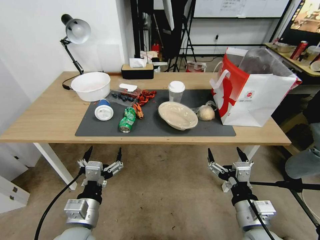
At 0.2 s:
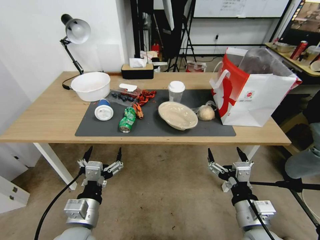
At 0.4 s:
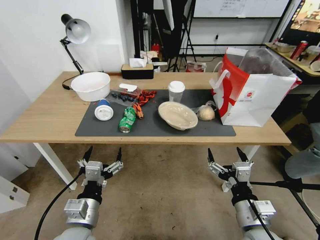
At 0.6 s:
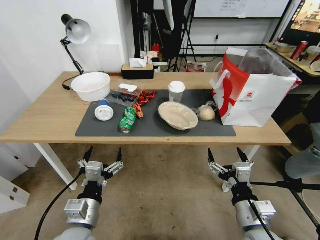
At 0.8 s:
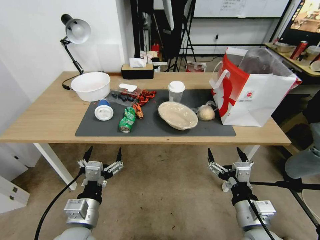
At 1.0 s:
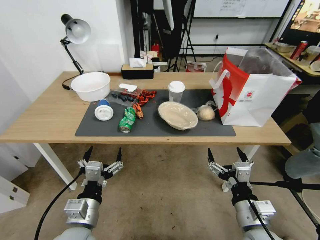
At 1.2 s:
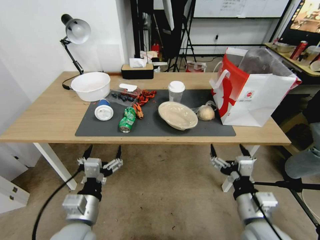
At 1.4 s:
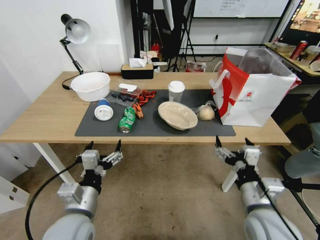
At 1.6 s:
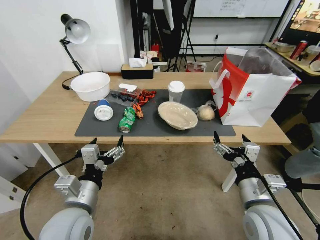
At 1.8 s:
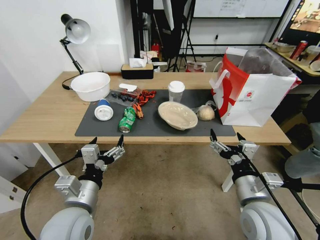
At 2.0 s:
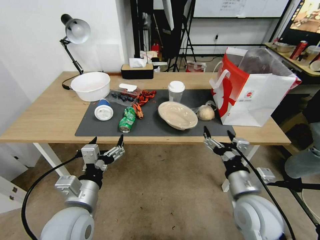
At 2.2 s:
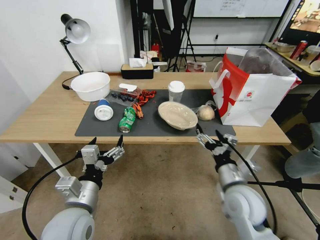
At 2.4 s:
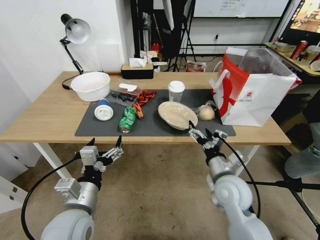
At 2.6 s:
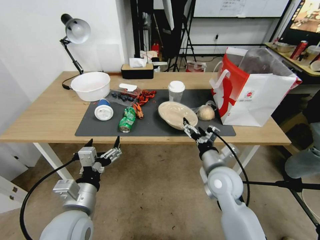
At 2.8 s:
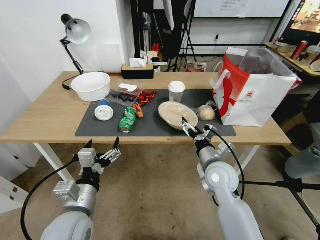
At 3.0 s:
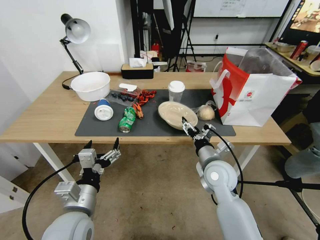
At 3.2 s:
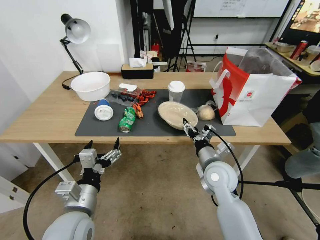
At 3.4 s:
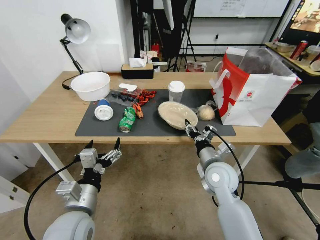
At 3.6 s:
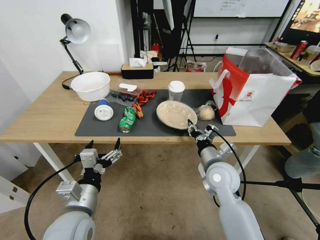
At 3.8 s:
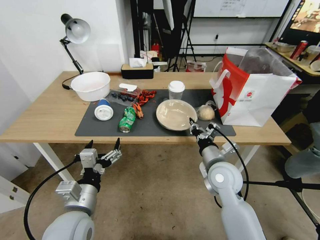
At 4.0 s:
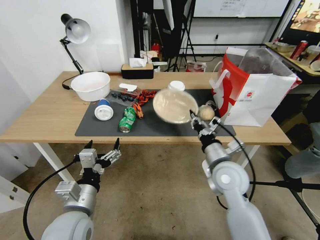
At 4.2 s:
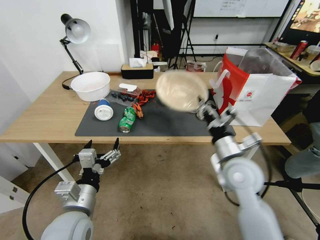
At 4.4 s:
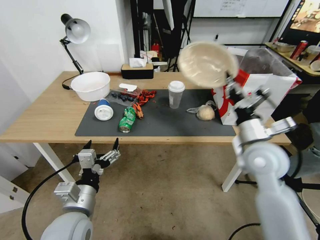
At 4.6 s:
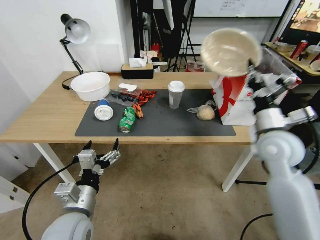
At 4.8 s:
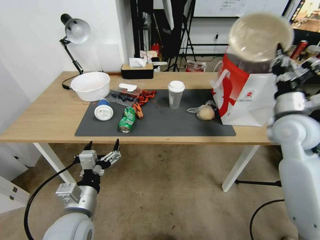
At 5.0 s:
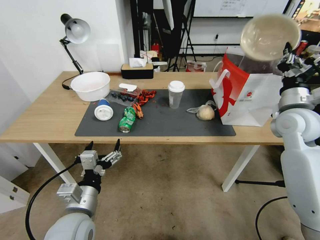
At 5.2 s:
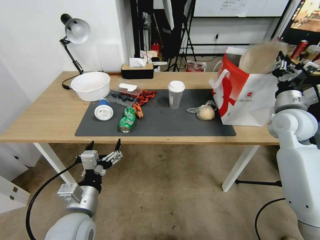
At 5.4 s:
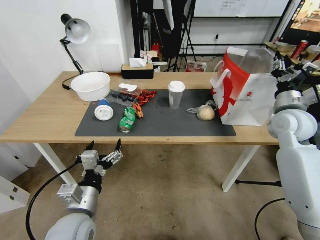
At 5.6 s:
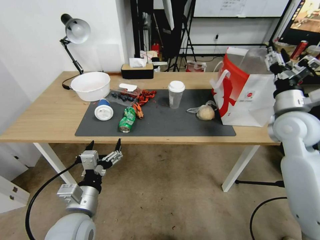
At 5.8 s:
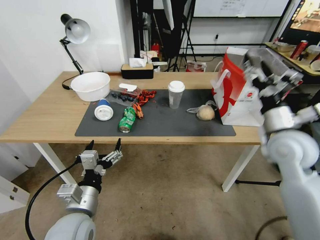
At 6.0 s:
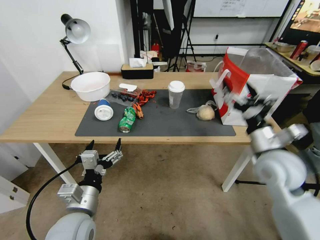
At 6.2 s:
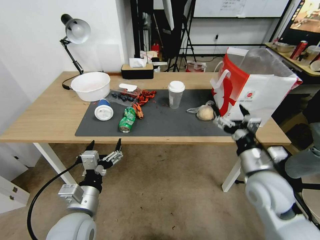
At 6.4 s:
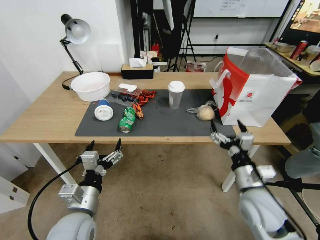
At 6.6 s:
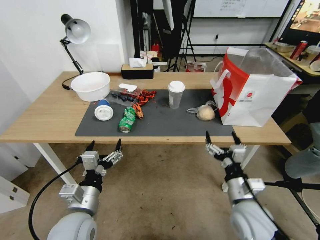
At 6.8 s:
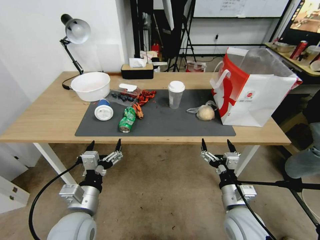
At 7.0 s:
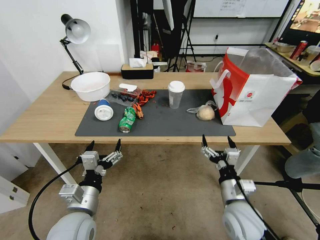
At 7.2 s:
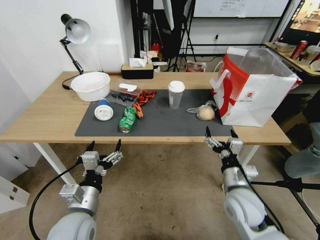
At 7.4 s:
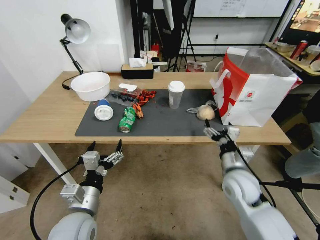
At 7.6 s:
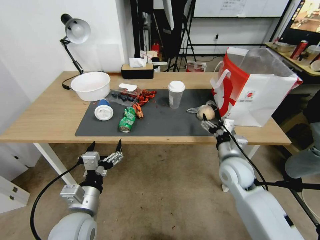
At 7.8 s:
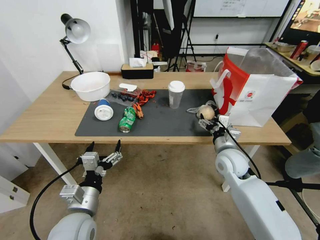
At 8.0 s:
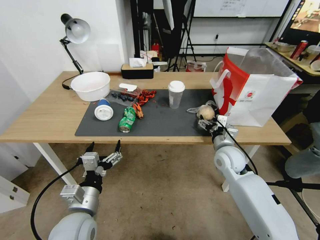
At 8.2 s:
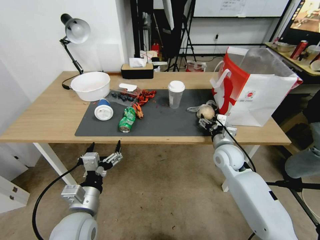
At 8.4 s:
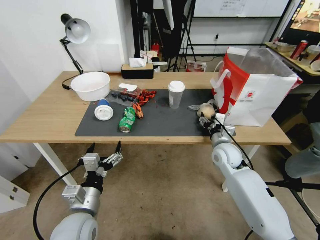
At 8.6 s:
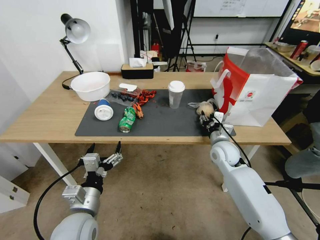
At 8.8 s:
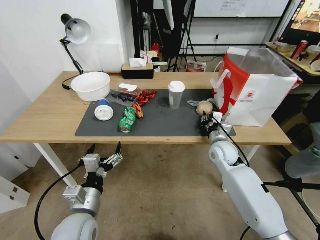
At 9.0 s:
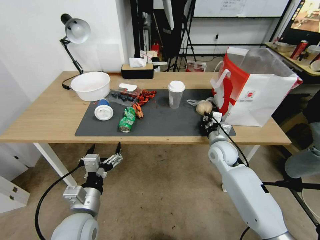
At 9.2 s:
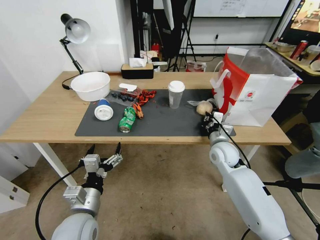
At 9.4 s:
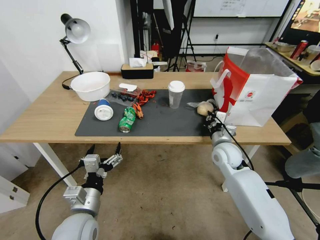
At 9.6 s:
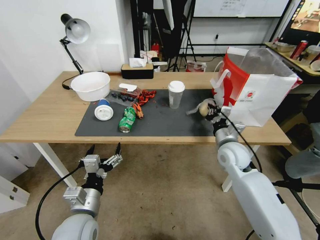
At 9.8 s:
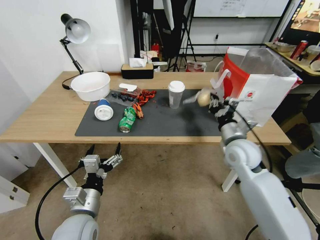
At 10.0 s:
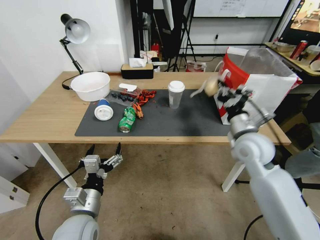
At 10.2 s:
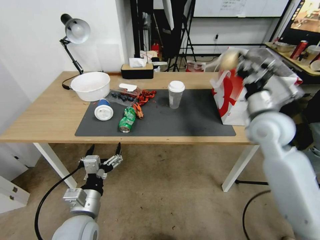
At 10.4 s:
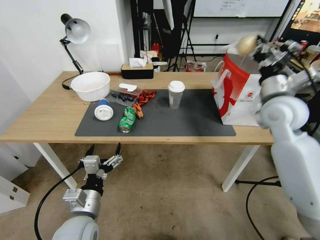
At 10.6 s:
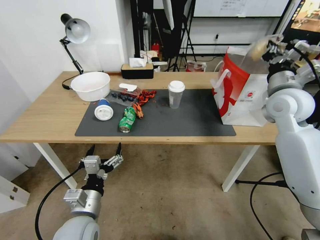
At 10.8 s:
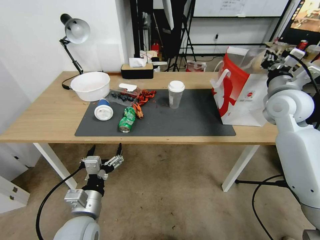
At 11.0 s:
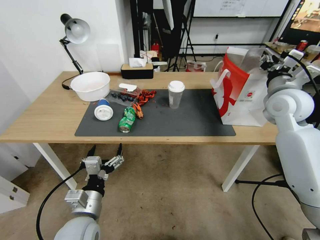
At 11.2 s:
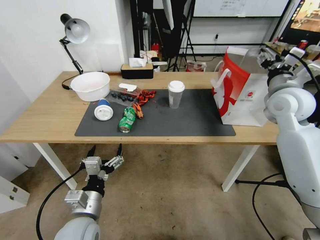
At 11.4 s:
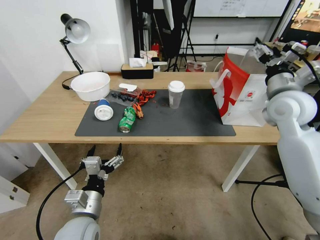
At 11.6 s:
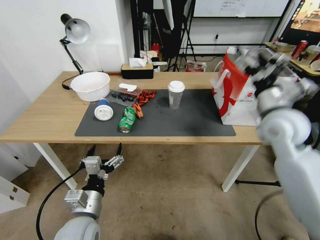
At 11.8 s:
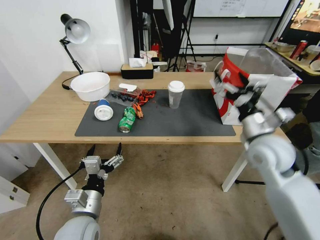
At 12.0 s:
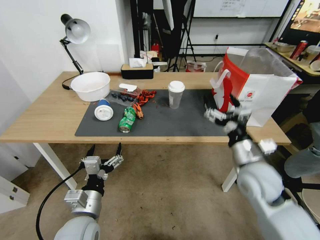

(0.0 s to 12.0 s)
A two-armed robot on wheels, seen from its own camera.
1.6 s - 3.0 s: The right gripper shifts approximately 15 cm forward and to the left.
3.0 s - 4.4 s: The right gripper heads upward and to the right, covering about 15 cm, and closes its fingers.
4.4 s - 6.0 s: The right gripper travels forward and back again, about 10 cm each way, and opens its fingers.
6.0 s - 7.6 s: The right gripper moves downward and to the left, some 10 cm.
7.6 s - 9.0 s: The right gripper travels forward by roughly 10 cm, and closes its fingers.
9.0 s - 10.4 s: The right gripper travels upward by approximately 25 cm.
10.4 s - 12.0 s: The right gripper is displaced downward, backward and to the left by roughly 20 cm, and opens its fingers.

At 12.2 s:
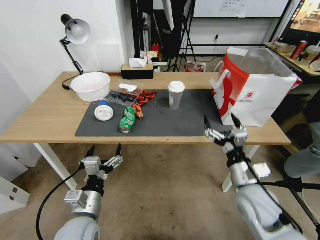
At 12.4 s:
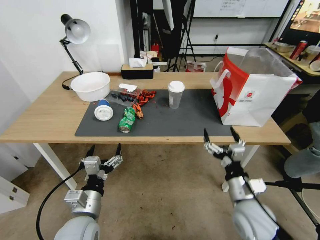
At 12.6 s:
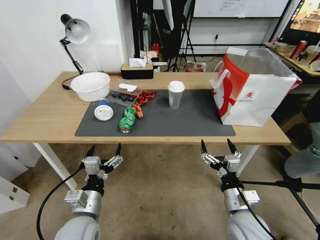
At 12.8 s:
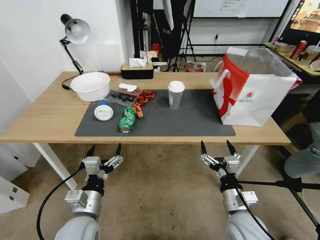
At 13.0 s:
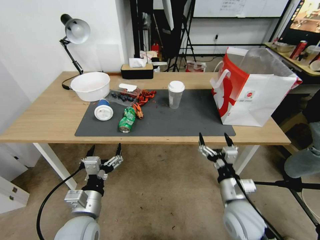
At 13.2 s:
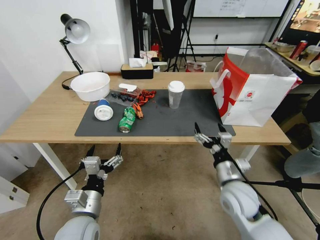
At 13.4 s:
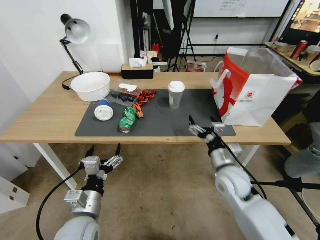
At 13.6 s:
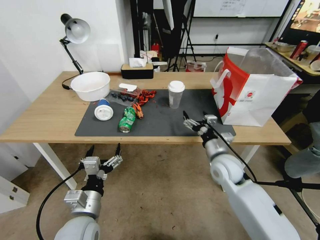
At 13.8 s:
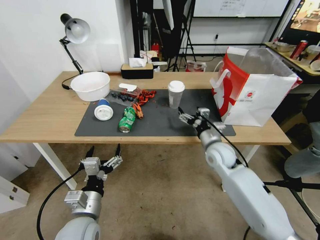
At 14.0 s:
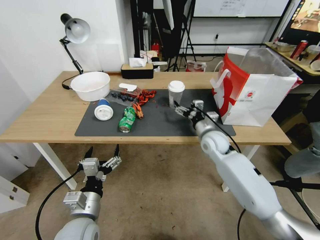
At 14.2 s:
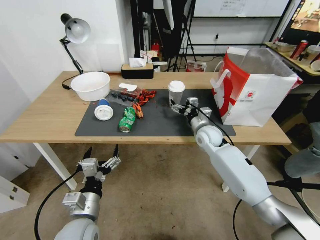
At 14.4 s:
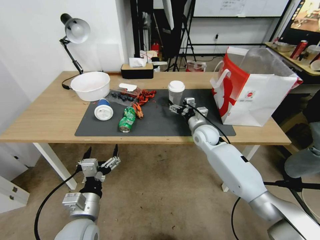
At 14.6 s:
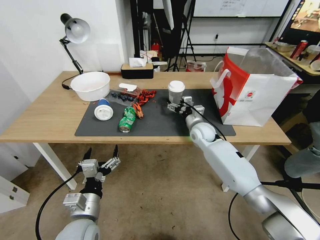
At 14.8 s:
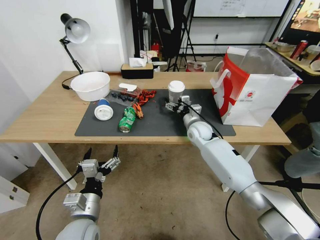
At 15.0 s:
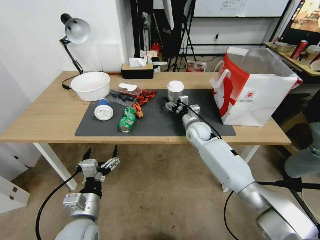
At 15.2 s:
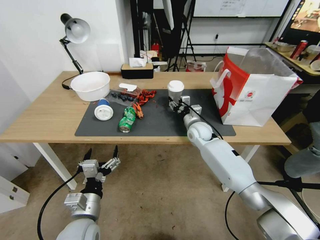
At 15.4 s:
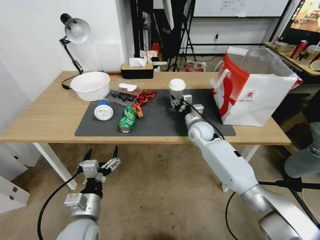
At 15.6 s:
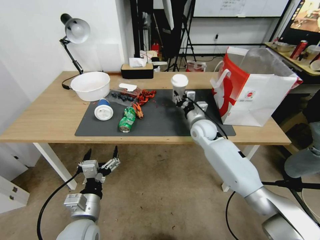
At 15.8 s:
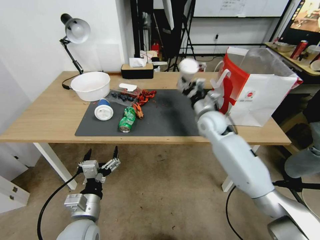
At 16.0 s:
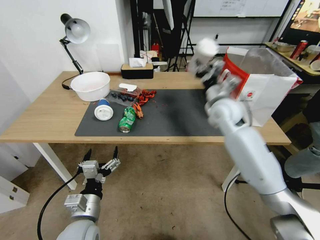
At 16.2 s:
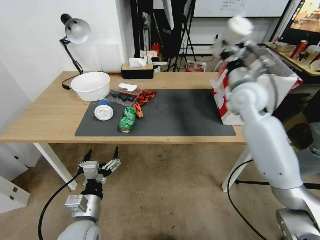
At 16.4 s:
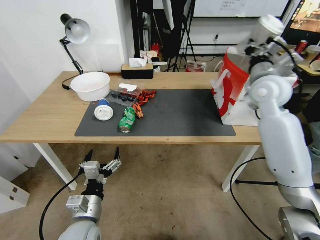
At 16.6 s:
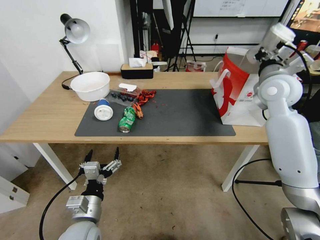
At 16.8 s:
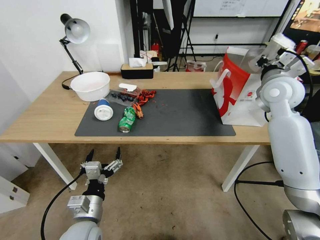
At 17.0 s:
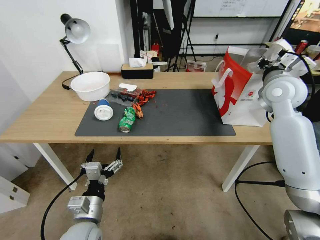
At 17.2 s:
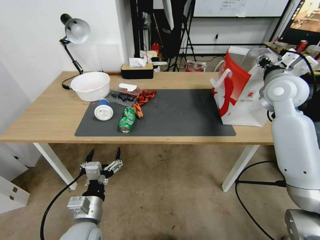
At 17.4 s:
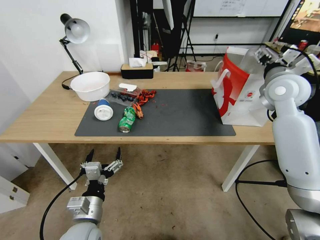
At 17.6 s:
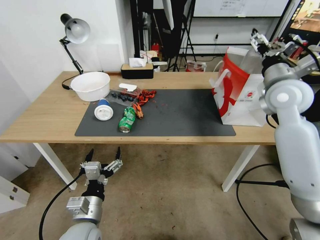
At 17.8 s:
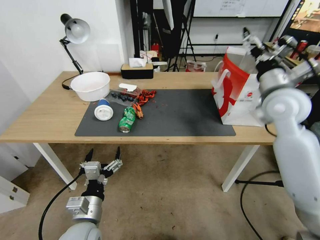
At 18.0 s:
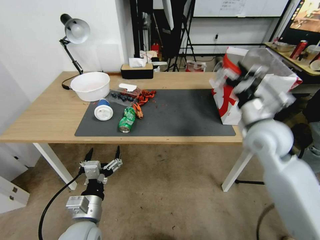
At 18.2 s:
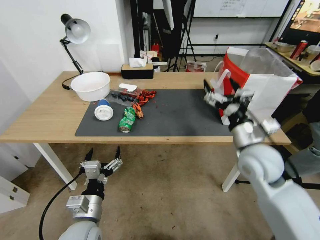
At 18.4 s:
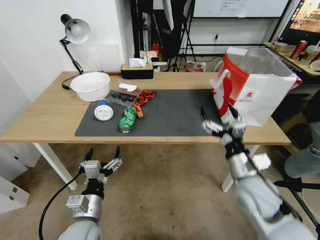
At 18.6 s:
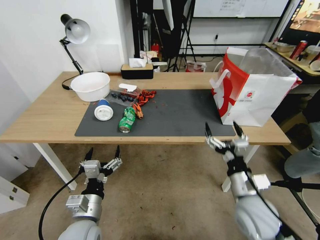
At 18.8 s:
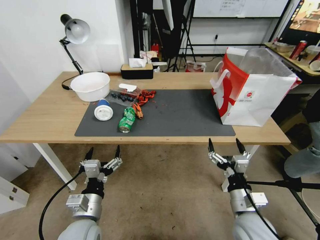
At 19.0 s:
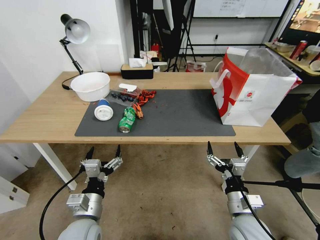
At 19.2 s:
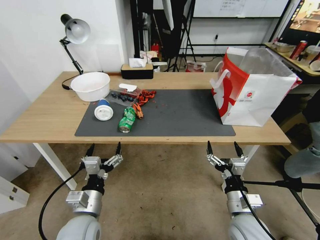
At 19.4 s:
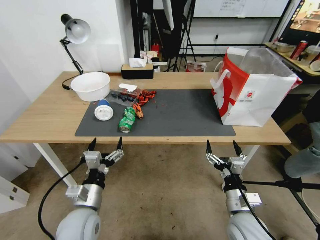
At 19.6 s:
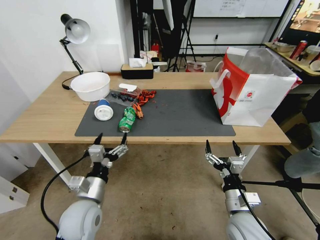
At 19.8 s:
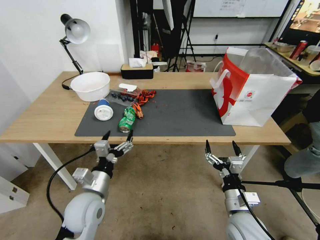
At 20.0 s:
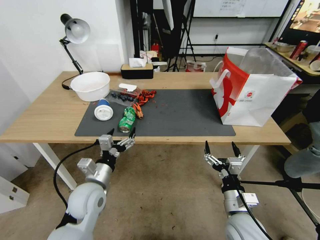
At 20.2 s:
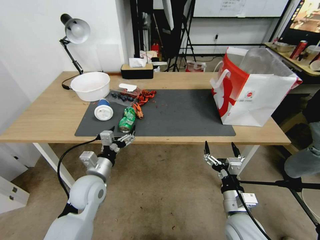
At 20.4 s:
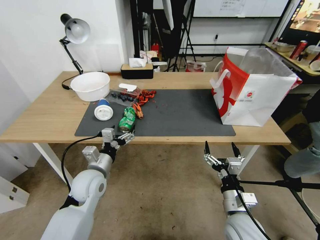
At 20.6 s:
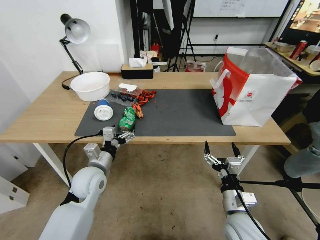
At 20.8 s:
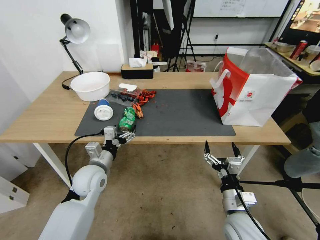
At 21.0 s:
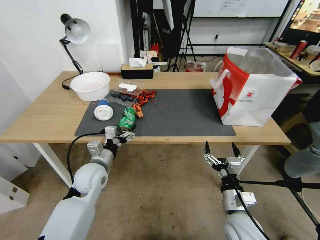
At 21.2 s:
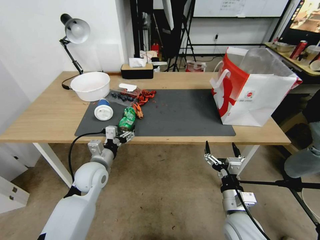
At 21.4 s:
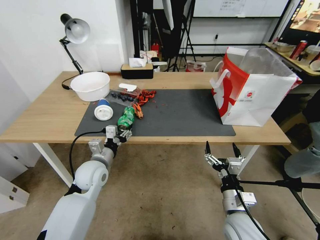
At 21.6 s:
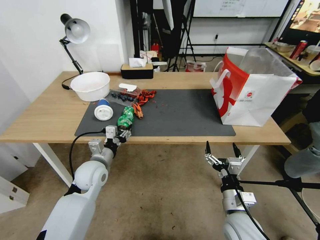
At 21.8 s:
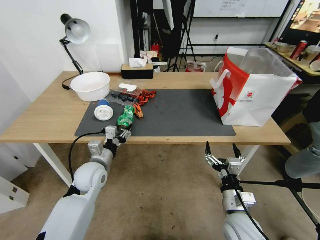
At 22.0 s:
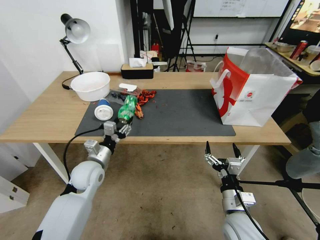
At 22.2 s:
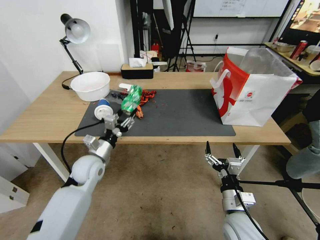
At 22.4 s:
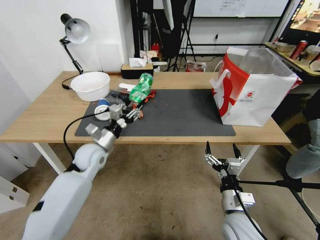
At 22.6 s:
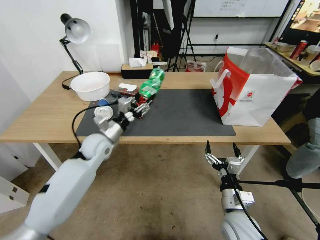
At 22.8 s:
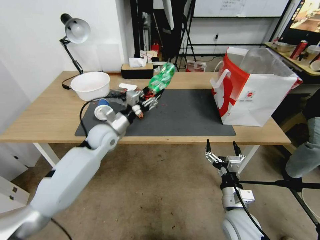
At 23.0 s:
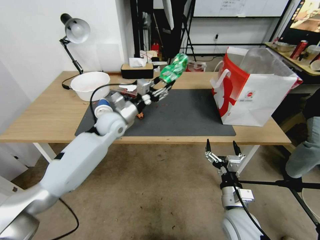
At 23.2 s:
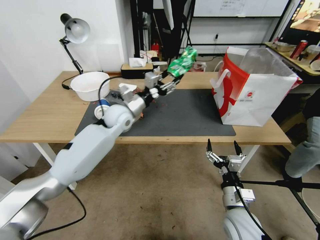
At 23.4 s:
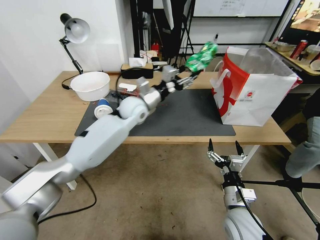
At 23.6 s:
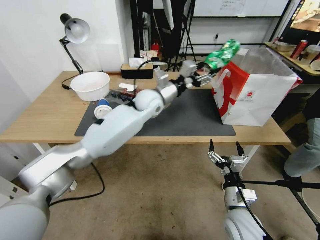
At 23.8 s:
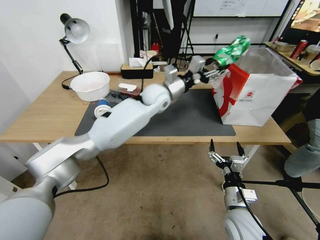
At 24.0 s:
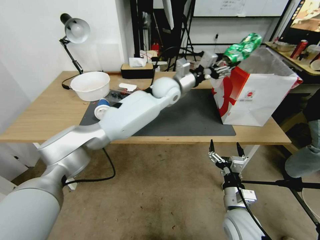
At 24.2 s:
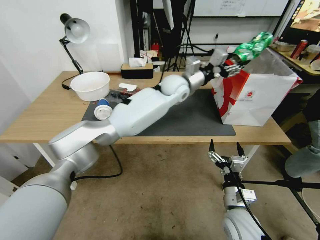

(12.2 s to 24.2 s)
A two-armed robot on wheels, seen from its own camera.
12.2 s - 13.8 s: The right gripper goes about 15 cm forward.
13.8 s - 15.2 s: The right gripper goes approximately 10 cm forward, and closes its fingers.
15.2 s - 16.6 s: The right gripper goes approximately 30 cm upward and to the right, and closes up.
16.6 s - 18.2 s: The right gripper goes about 20 cm backward, downward and to the left, and opens.
18.2 s - 19.8 s: The right gripper heads downward and backward, covering about 20 cm. Meanwhile the left gripper heads forward, covering approximately 5 cm.
19.8 s - 21.2 s: The left gripper goes some 10 cm forward.
21.2 s - 22.6 s: The left gripper shifts about 10 cm forward, and closes.
22.6 s - 24.2 s: The left gripper moves to the right, upward and forward, roughly 35 cm.
